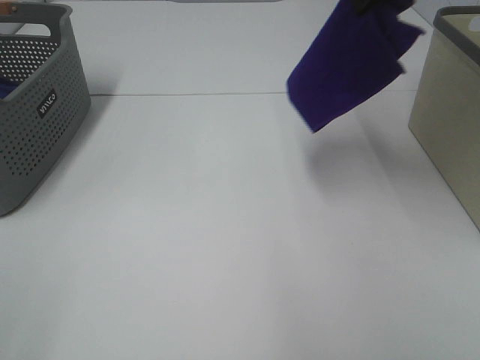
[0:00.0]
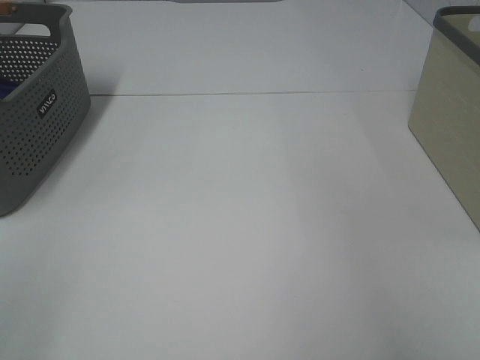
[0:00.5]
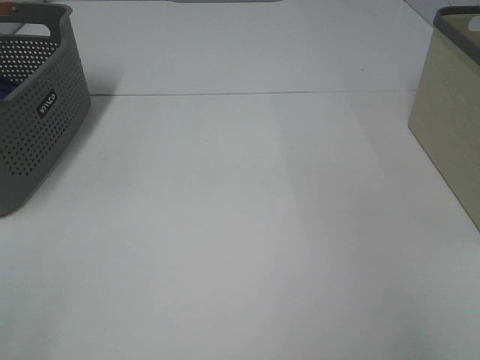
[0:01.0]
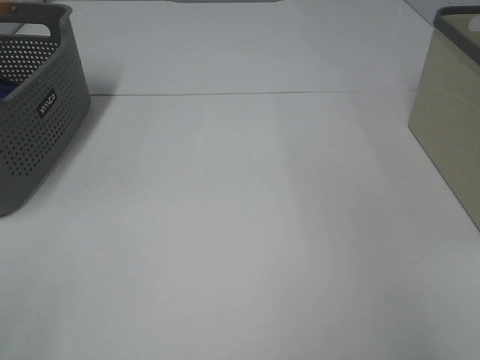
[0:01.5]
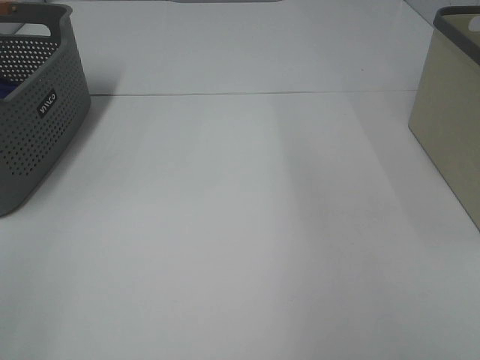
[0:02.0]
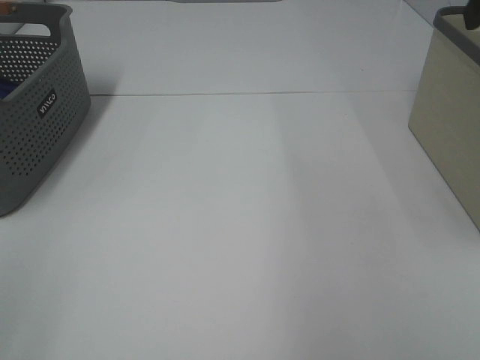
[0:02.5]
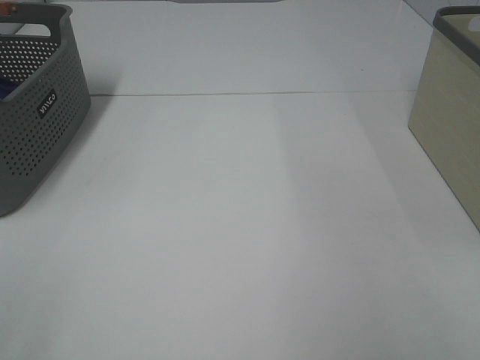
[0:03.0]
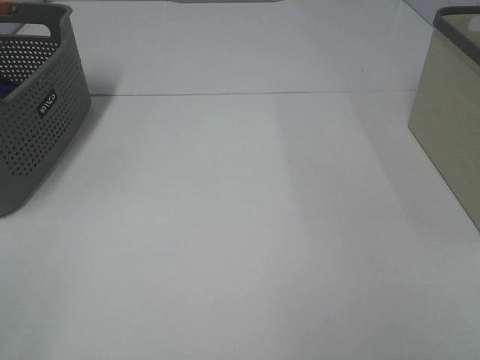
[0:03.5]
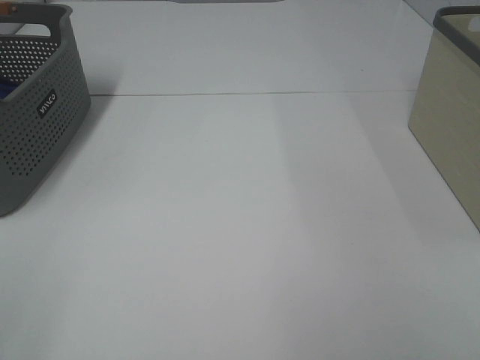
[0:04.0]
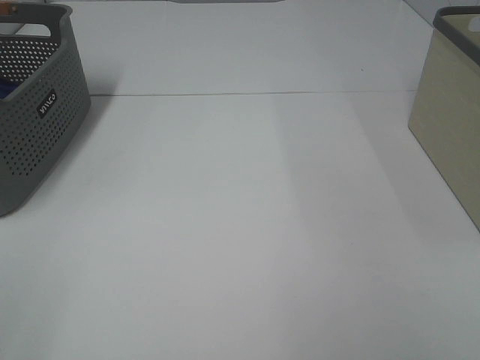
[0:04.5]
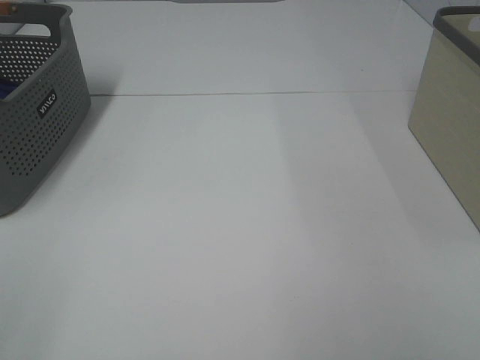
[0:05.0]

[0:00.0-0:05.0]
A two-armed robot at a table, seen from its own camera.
0:00.0 to 0:02.5: The right gripper moves backward and to the right, about 15 cm, and opens up.
